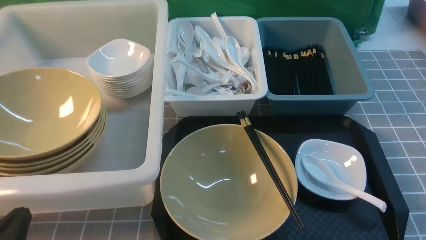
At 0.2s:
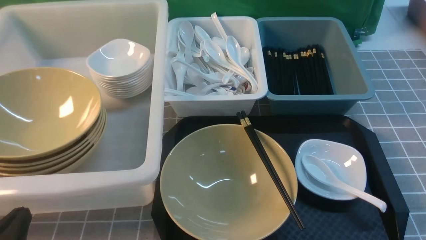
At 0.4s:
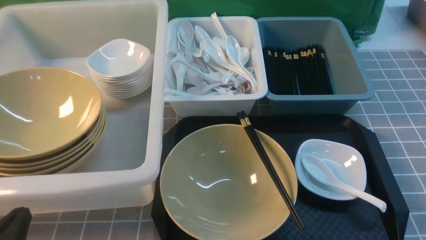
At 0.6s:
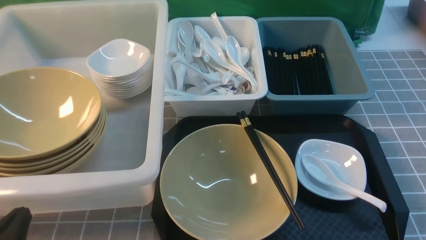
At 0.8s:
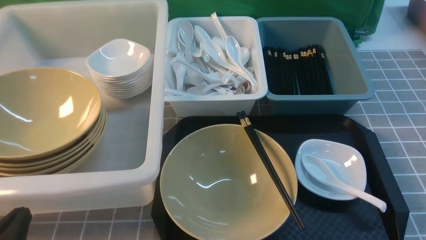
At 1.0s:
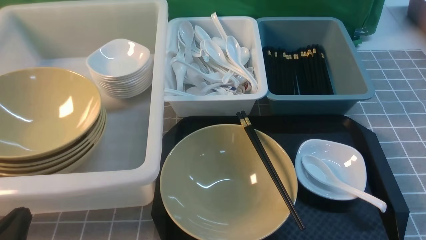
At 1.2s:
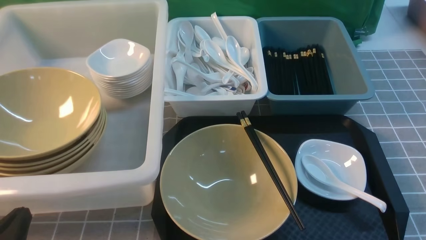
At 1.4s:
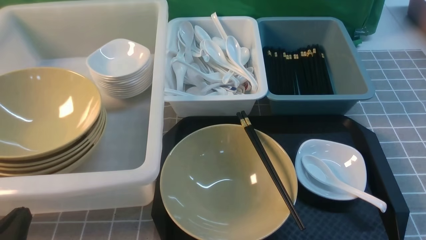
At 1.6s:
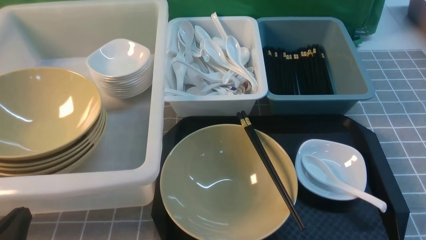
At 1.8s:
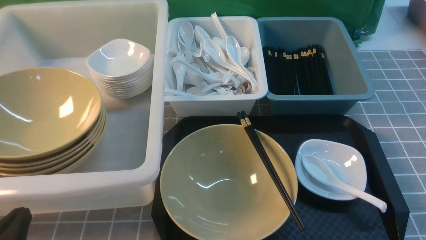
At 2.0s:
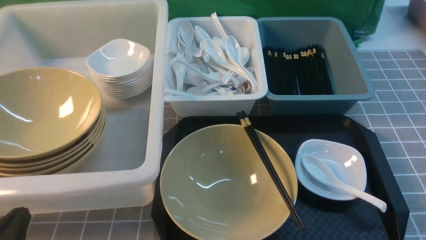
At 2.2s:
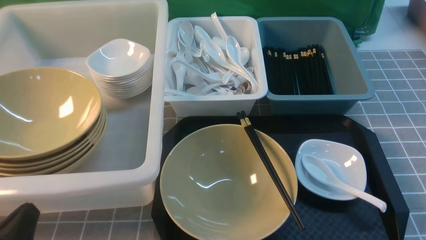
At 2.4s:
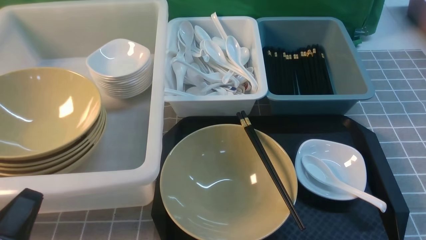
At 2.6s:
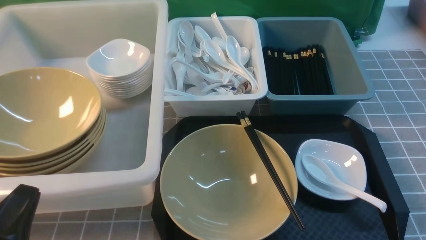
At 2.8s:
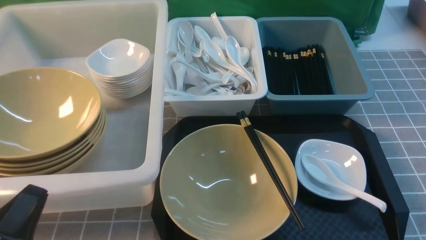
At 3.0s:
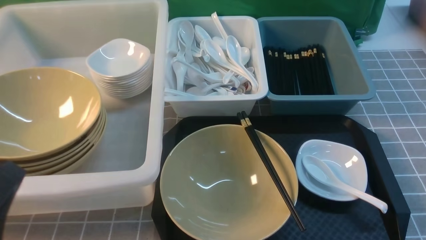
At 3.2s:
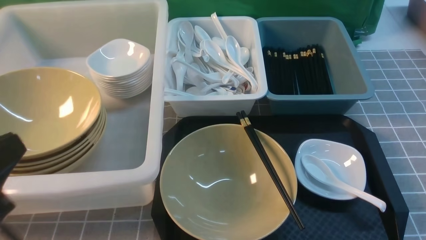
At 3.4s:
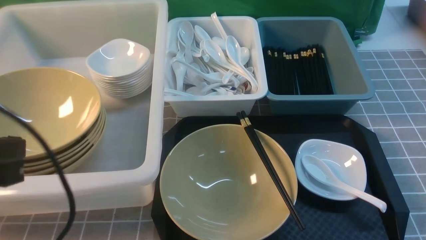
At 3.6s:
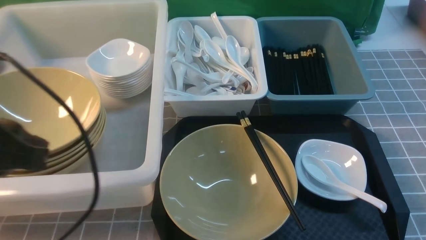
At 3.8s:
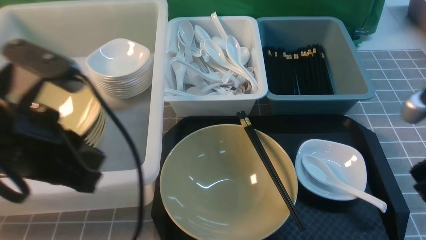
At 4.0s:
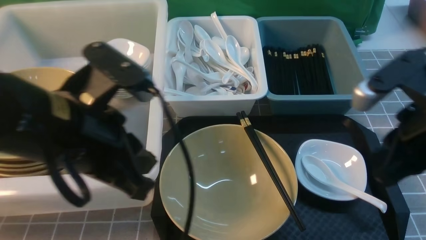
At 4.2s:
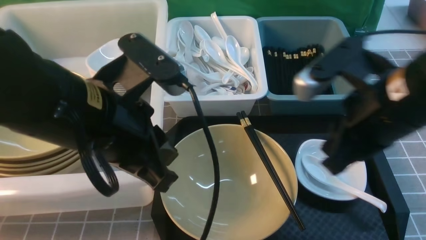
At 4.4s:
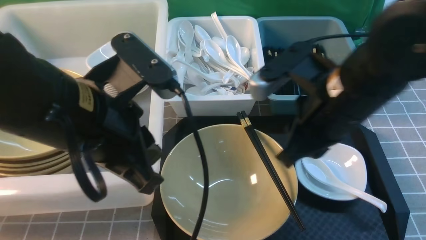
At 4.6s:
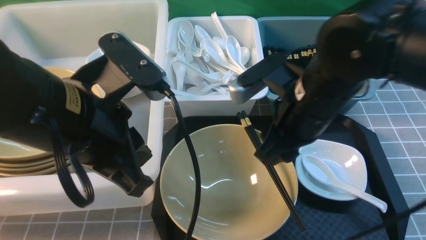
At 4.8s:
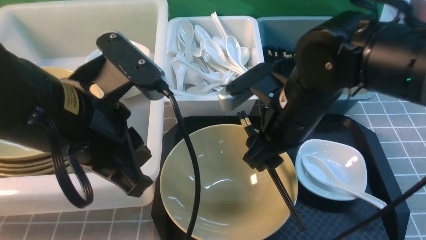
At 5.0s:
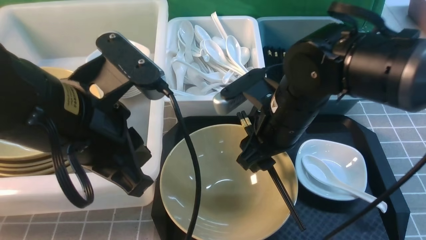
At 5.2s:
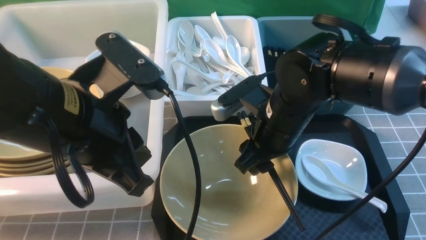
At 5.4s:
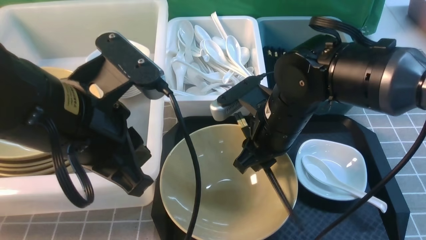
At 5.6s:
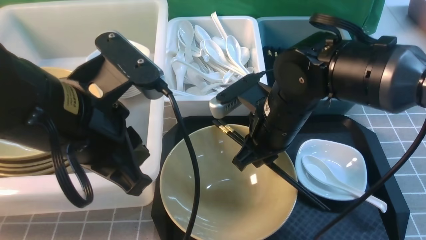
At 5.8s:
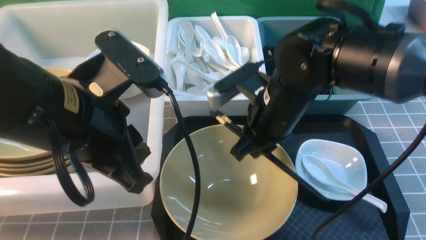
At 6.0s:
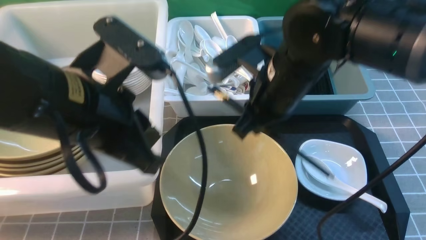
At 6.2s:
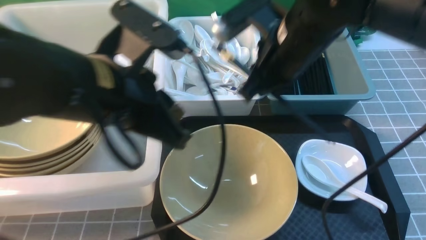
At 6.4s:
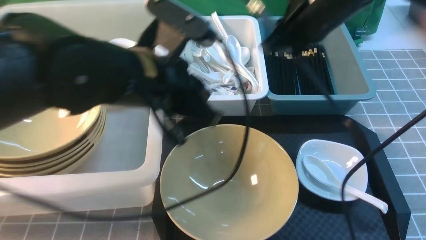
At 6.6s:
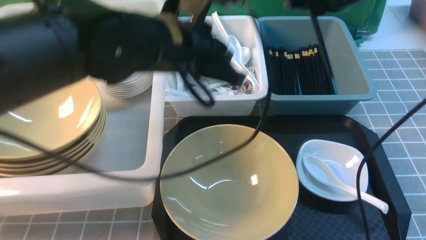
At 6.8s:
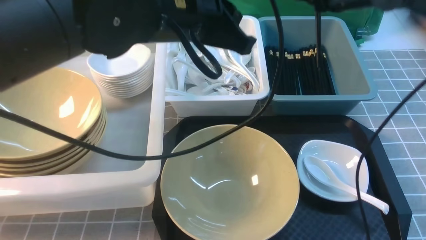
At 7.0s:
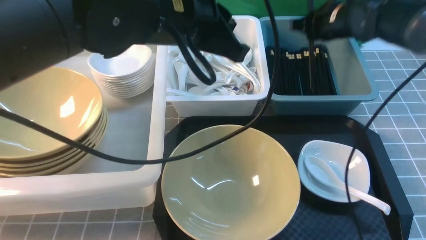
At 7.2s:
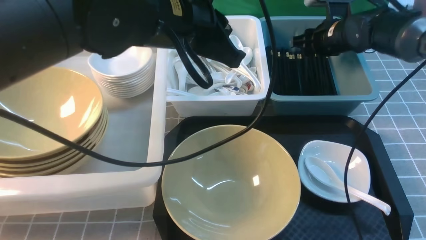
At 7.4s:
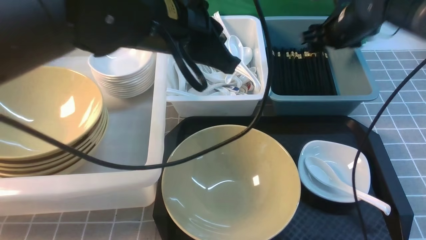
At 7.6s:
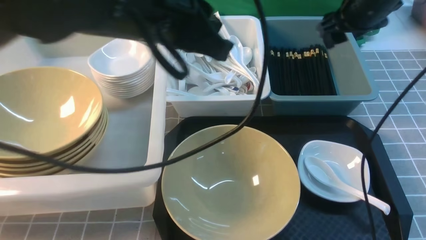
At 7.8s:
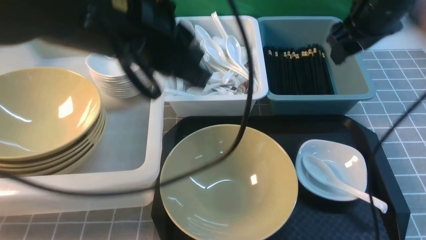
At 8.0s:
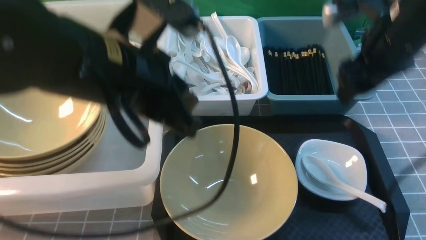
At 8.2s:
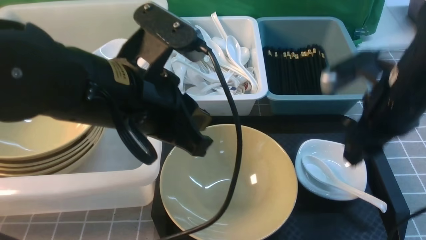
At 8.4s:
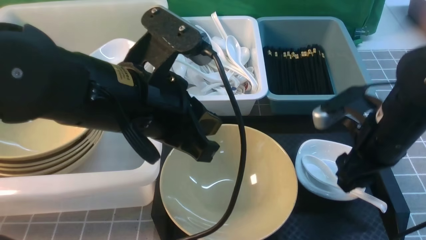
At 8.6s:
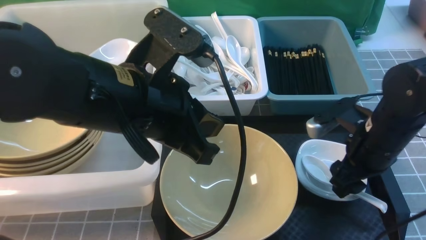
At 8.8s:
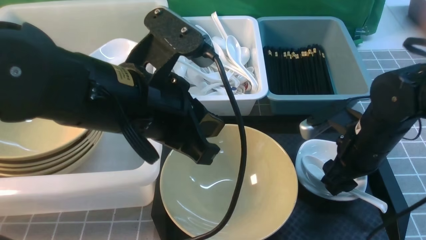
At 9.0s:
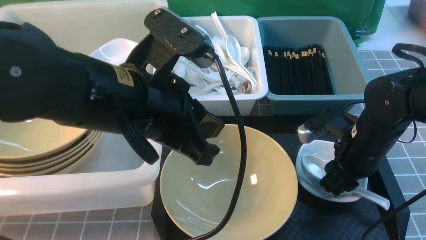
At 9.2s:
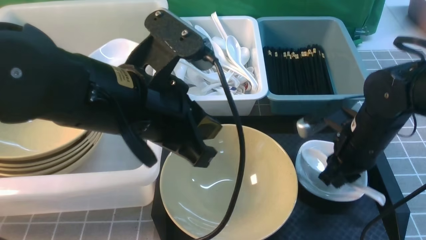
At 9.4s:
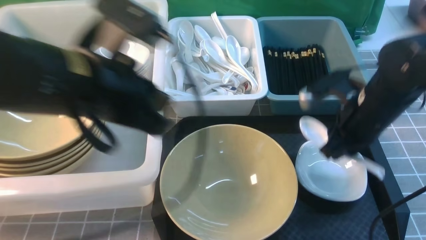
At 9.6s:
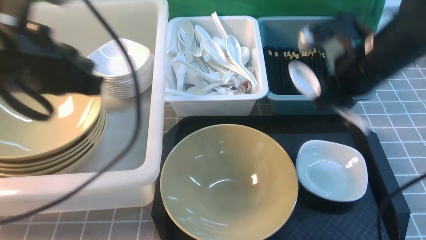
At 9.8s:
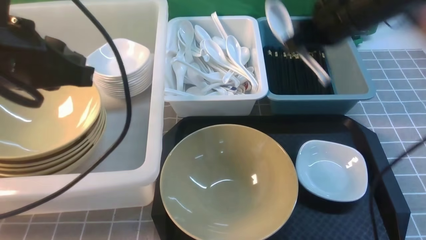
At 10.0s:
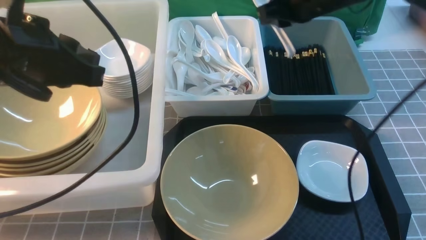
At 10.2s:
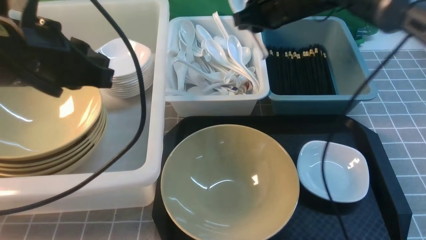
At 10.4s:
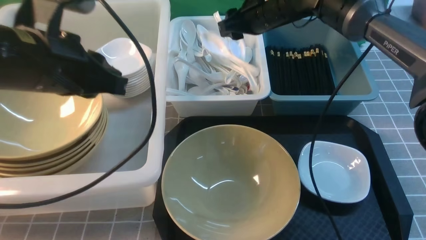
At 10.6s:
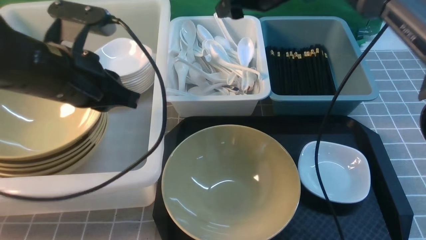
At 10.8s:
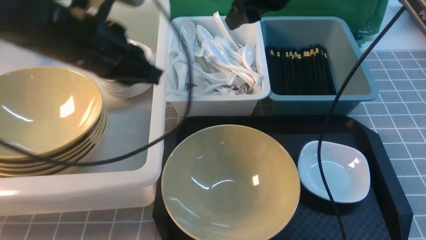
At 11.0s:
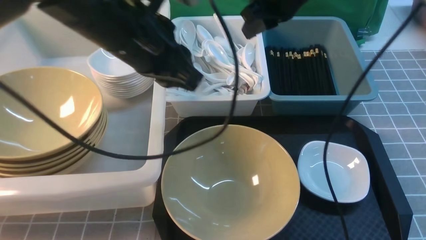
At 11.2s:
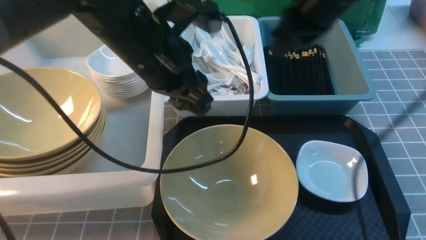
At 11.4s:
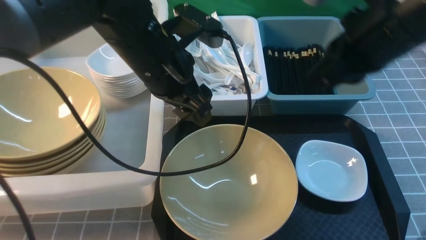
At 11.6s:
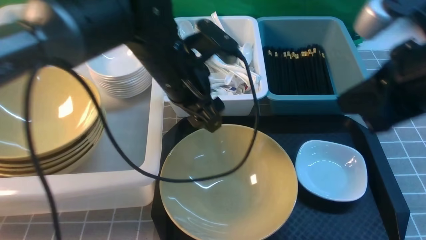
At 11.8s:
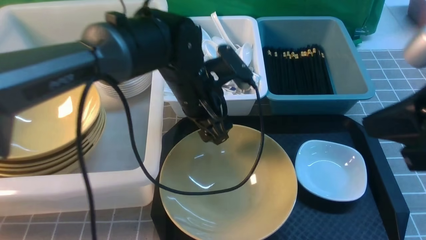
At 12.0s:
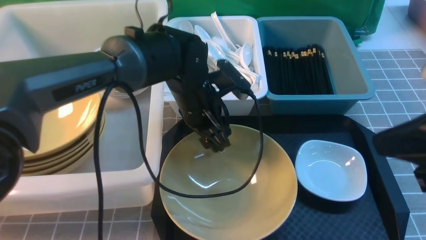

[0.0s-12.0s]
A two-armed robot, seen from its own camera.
Task of the whole recording: on grey table put chopsticks spoon bowls plates into blue grey white boxes.
Step, 0.0s to 6.0s: use the right arm to grab the chopsticks.
Step, 6.2s to 7.6s: use the right arm to put the chopsticks into the small storage box on the right.
Step, 8.0s to 9.4s: use the right arm to grab the soup spoon in the middle.
Step, 9.8s to 11.2s: use the right arm to put the soup spoon into the small storage box in the middle.
1.6s to 3.0s: The left gripper is displaced upward by about 10 cm.
3.0s to 4.4s: The right gripper moves forward, to the left and upward, approximately 25 cm. The left gripper goes about 20 cm forward, to the right and upward.
4.4s to 6.0s: The right gripper moves forward and to the left, approximately 10 cm, and opens and closes again.
6.0s to 7.6s: The right gripper goes some 20 cm to the right and forward, and opens up. The left gripper shifts some 10 cm forward and to the right.
7.6s to 9.0s: The left gripper moves backward, about 5 cm, while the right gripper shifts some 20 cm backward and downward.
9.0s to 10.4s: The left gripper shifts some 10 cm to the left. The right gripper heads forward, upward and to the left, covering approximately 25 cm, and closes, then opens again.
10.4s to 12.0s: The left gripper heads to the right, downward and forward, covering approximately 20 cm, and opens. The right gripper goes approximately 30 cm backward, and closes its fingers.

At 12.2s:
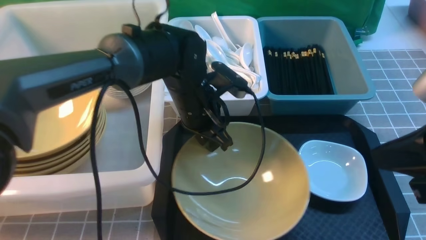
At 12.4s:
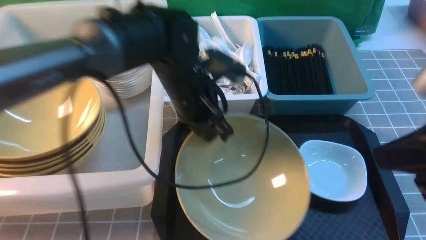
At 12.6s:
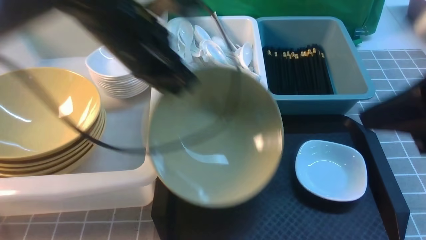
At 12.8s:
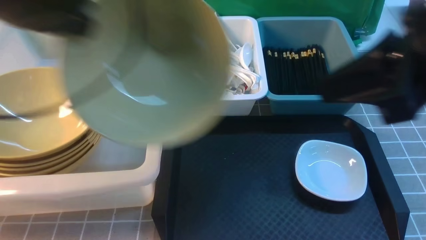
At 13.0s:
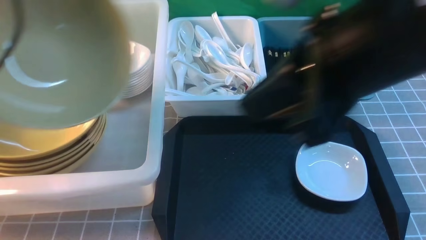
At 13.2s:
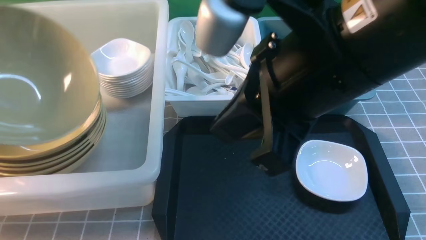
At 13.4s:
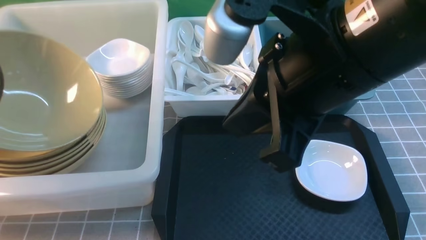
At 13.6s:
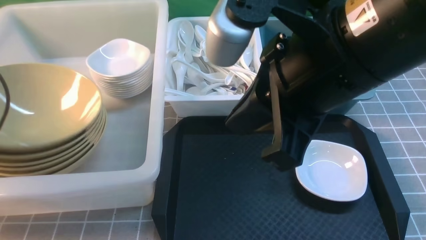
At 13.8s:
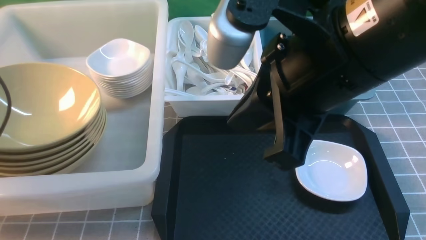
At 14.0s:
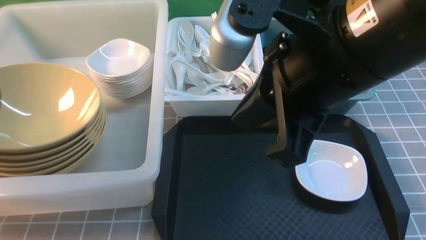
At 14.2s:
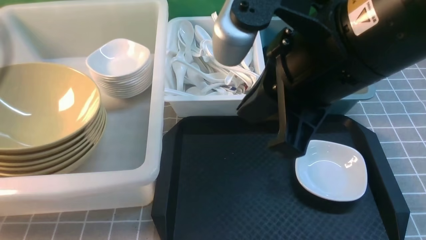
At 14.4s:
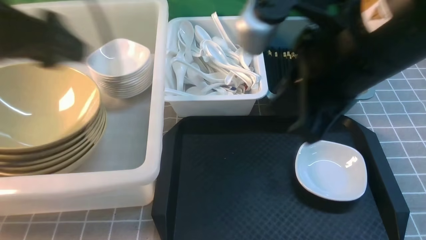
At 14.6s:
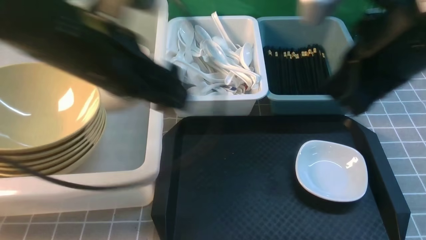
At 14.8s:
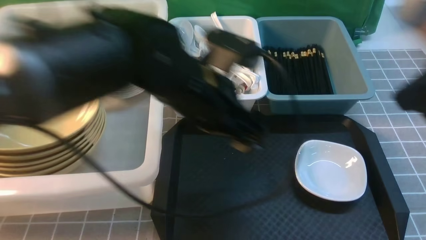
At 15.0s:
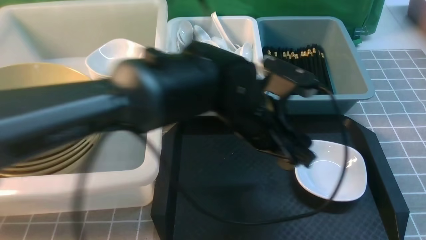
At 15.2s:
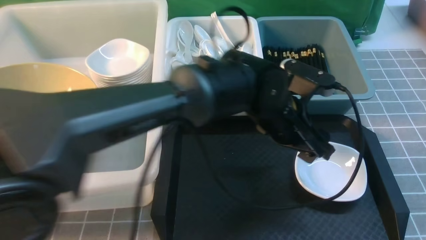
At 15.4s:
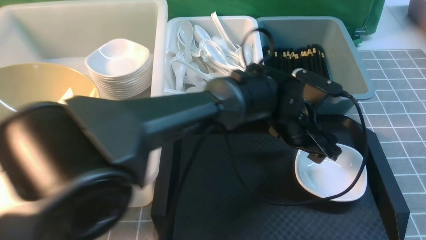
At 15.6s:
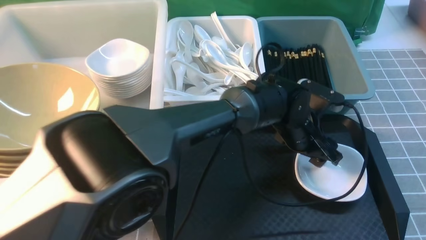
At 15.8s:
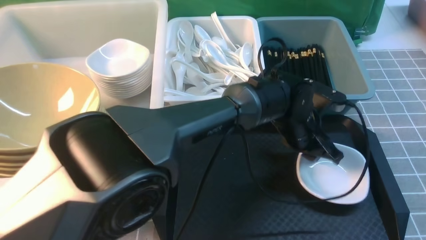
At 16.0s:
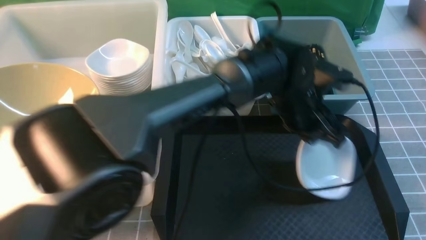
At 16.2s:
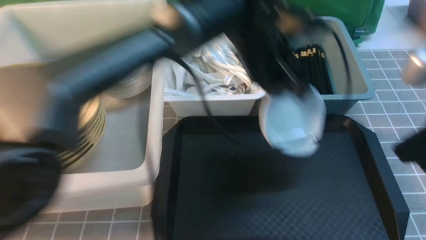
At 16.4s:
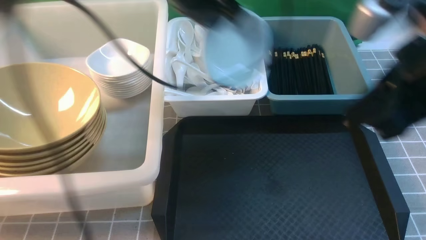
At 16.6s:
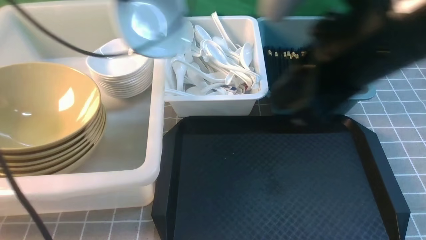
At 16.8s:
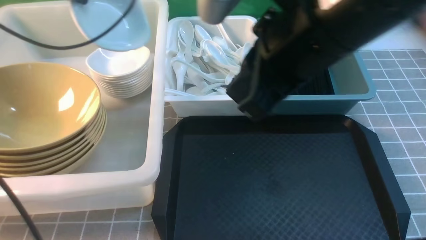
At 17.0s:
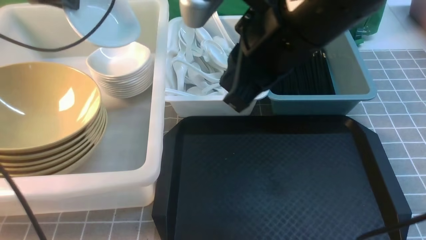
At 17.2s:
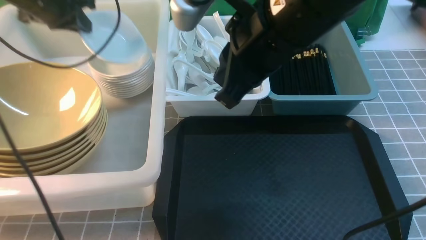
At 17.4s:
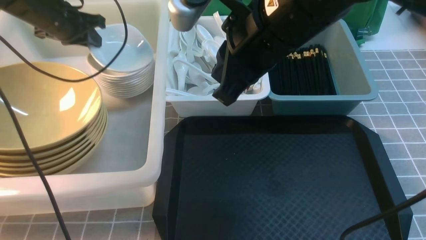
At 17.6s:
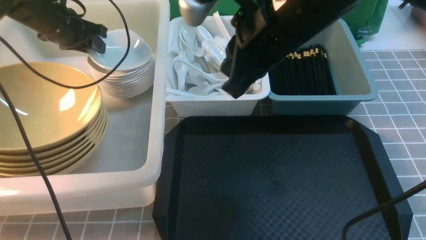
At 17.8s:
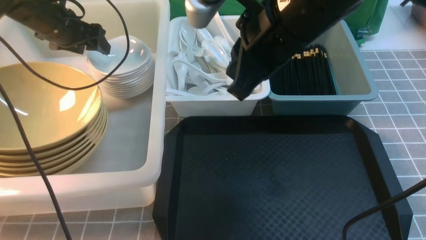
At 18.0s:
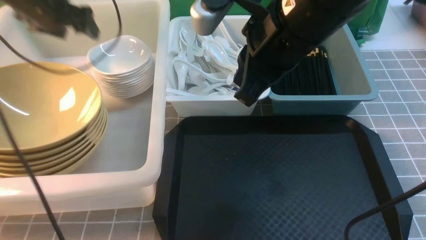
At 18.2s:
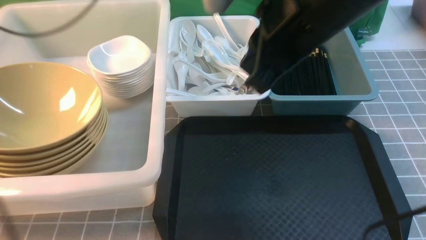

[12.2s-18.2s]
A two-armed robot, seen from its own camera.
Task of the whole recording: on grey table put chopsticks spoon bowls plates into blue grey white boxes.
Step, 12.8s to 14.0s: use the left arm to put the noodle bowl into the large storage box on the left.
Step, 14.2s to 16.0s: use the left arm to grab the plate.
Step, 16.2s to 17.8s: use the left arm to put the plate into the large storage box on the left.
12.2s to 13.8s: The right gripper goes roughly 15 cm to the left and upward; the left gripper shifts some 35 cm to the left, and closes and opens again.
13.8s to 15.2s: The left gripper goes roughly 50 cm to the right. Meanwhile the right gripper heads to the right, covering roughly 15 cm.
15.2s to 16.6s: The left gripper goes approximately 30 cm to the left, upward and forward, and closes up. Meanwhile the right gripper goes approximately 15 cm to the left and forward.
16.6s to 18.2s: The left gripper is displaced to the left by some 15 cm, and opens up. Meanwhile the right gripper travels to the left and forward by some 10 cm.
